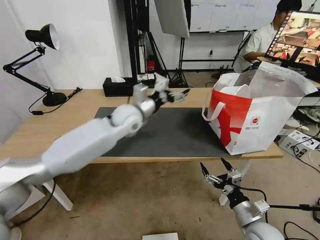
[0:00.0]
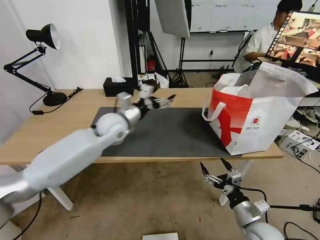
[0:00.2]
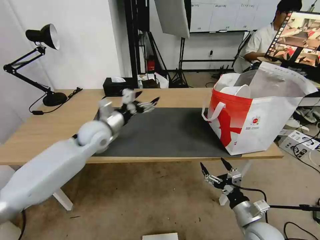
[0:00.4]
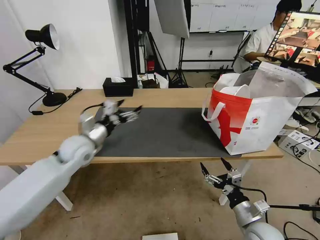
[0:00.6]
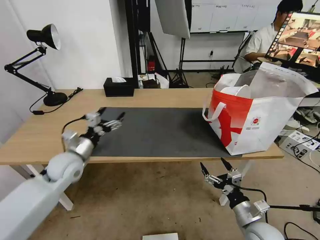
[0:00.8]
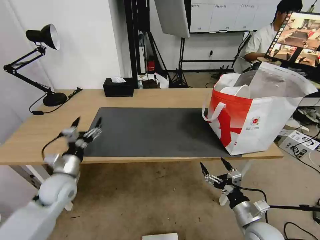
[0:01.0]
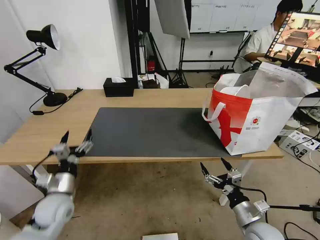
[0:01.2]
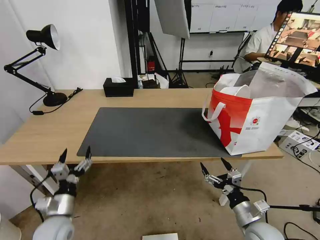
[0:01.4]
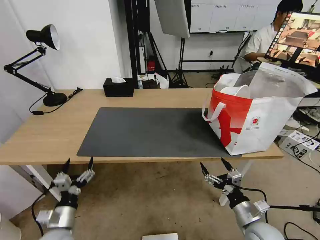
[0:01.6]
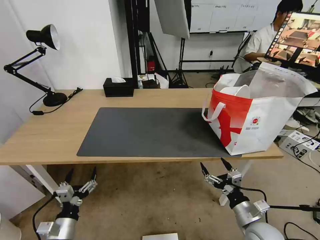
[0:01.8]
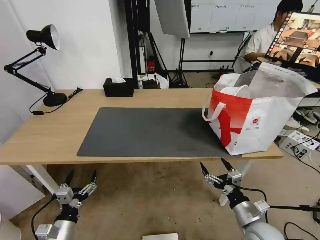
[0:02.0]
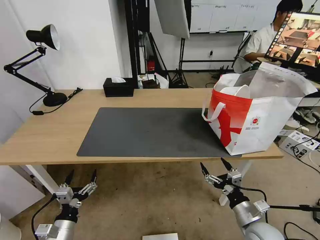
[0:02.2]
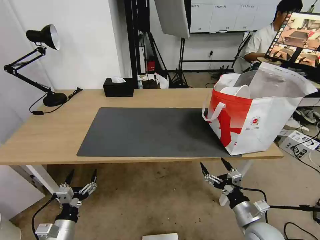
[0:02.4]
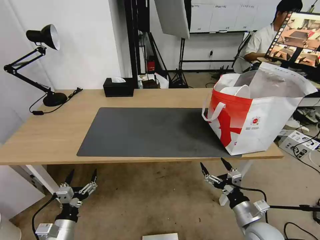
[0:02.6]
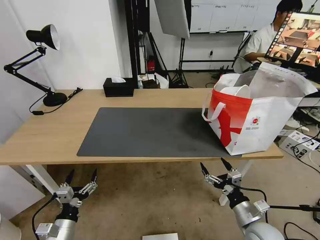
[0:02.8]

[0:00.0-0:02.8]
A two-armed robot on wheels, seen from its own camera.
Task of the whole recording: Pick up the trash from the table and place it into the takeout bag.
0:00.0 to 0:01.4: The left gripper goes about 40 cm backward, downward and to the left.
0:01.4 to 0:02.8: The left gripper shifts approximately 5 cm backward.
